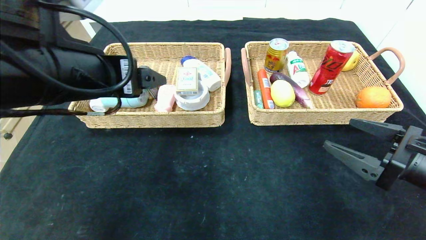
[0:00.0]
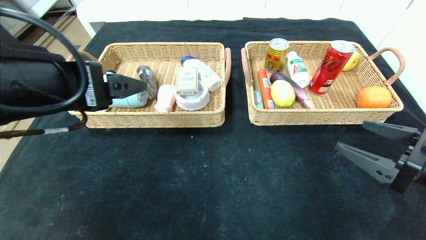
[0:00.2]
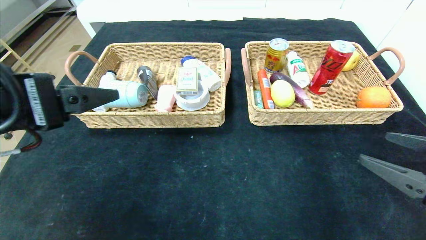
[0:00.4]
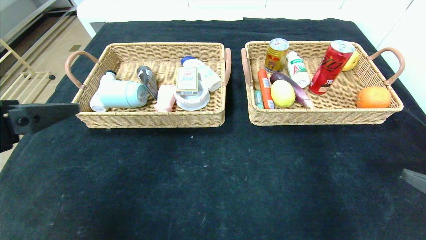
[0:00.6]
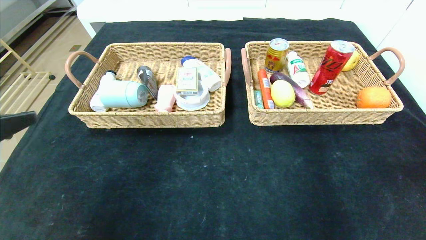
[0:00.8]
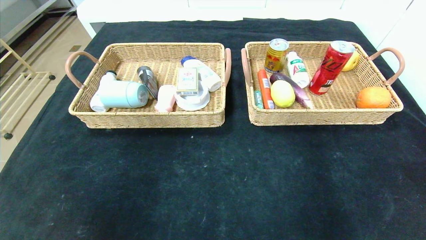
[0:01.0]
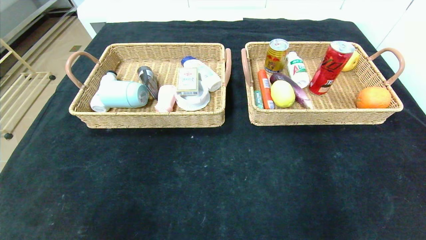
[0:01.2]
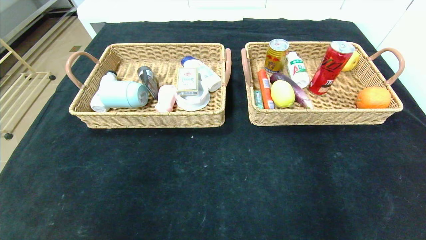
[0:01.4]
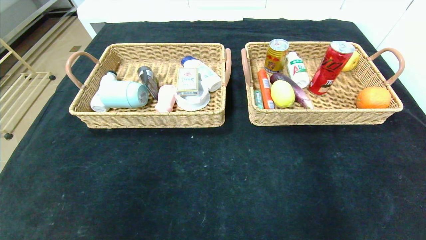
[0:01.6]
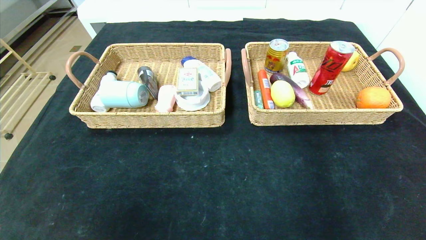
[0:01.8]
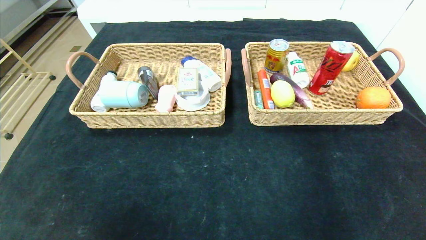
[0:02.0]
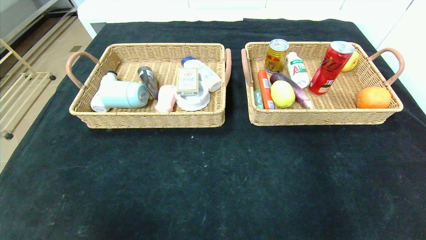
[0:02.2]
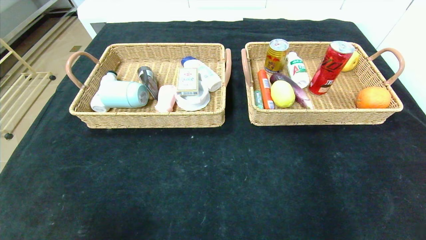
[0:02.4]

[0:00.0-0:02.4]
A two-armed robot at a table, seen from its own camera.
0.0 to 1.2 s: The left gripper travels backward and to the left by approximately 25 cm. Meanwhile the right gripper heads backward, covering approximately 25 cm.

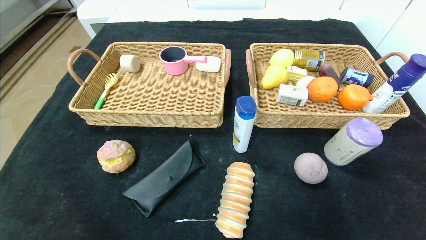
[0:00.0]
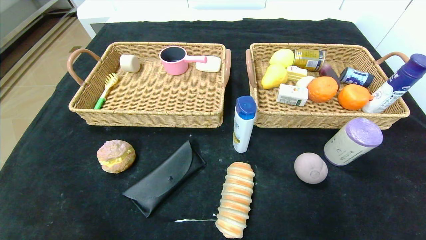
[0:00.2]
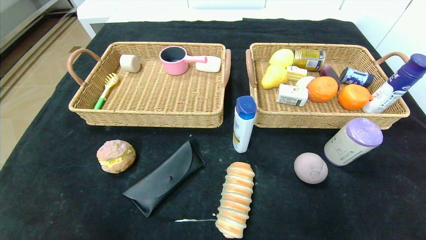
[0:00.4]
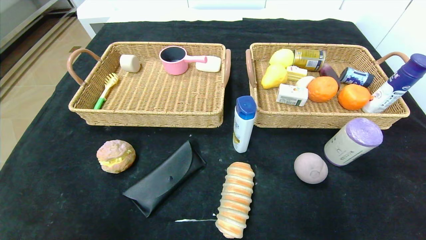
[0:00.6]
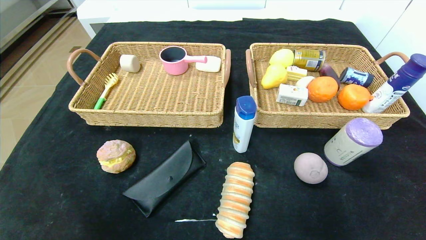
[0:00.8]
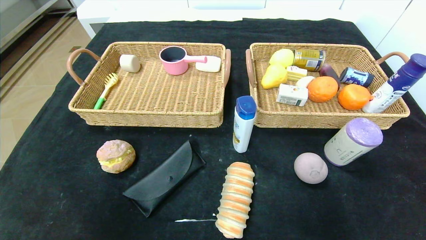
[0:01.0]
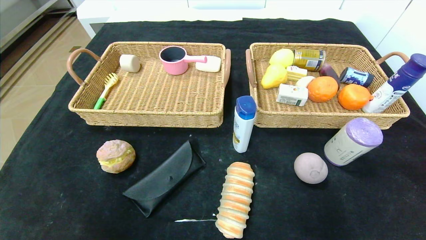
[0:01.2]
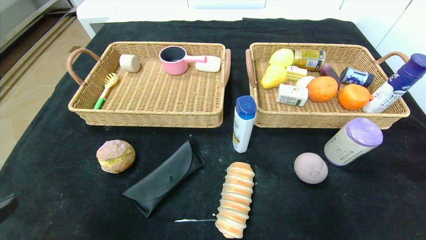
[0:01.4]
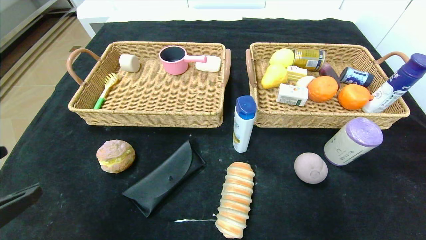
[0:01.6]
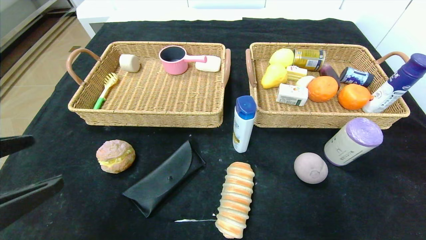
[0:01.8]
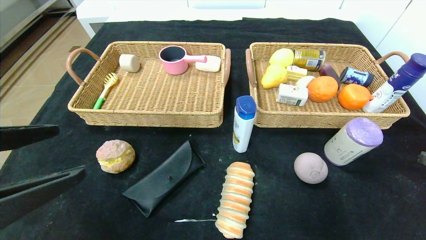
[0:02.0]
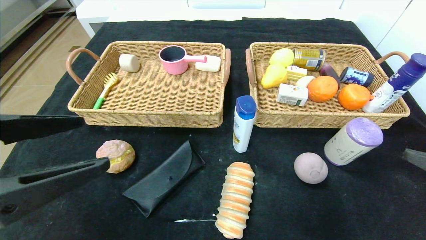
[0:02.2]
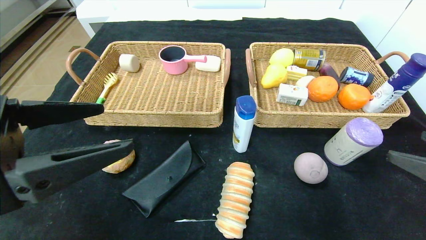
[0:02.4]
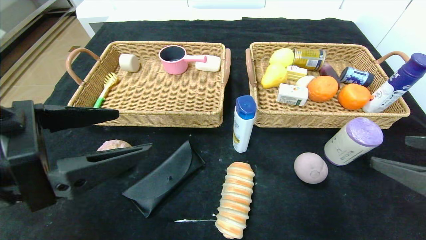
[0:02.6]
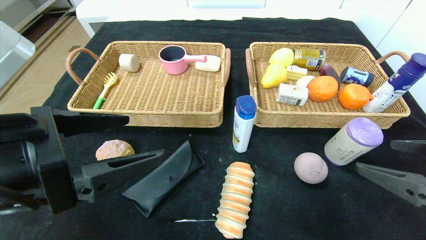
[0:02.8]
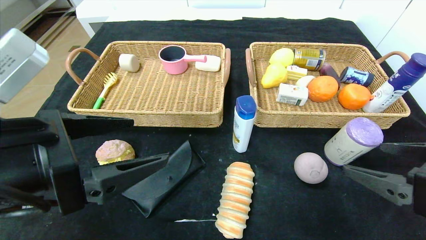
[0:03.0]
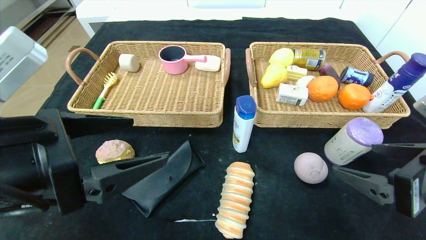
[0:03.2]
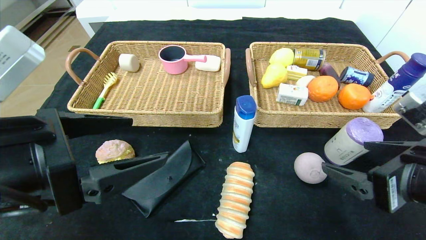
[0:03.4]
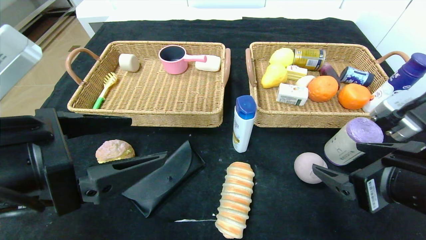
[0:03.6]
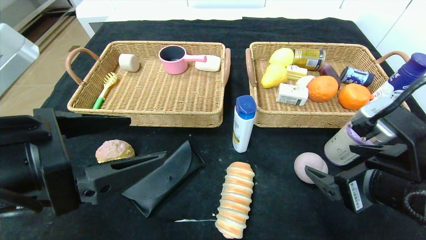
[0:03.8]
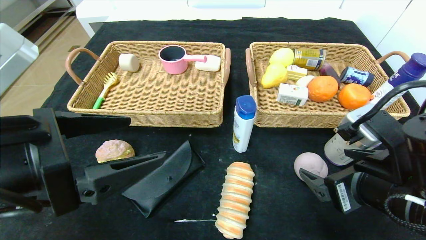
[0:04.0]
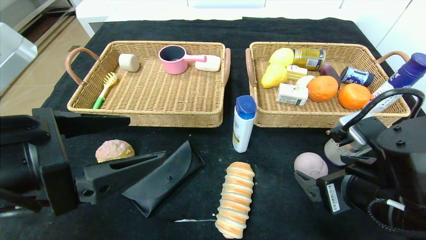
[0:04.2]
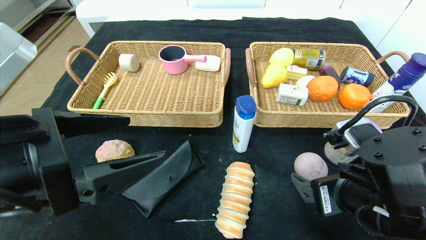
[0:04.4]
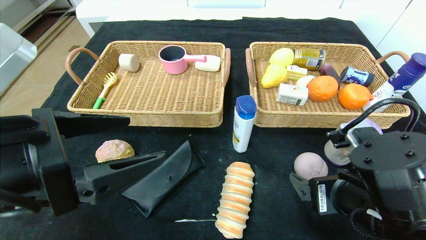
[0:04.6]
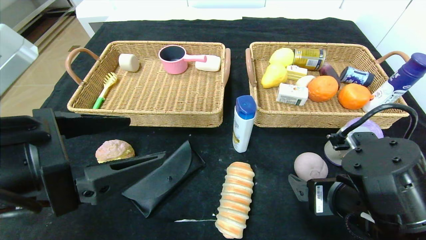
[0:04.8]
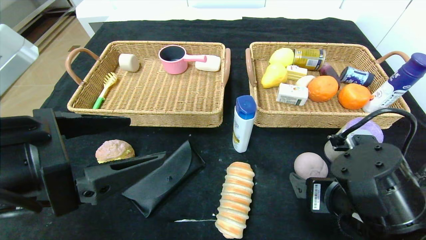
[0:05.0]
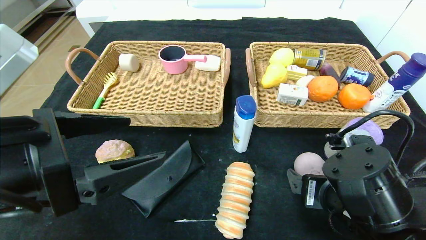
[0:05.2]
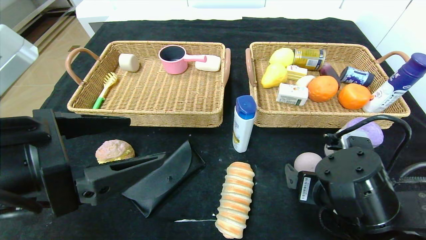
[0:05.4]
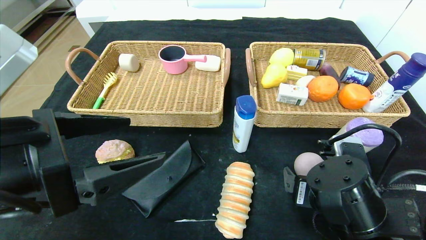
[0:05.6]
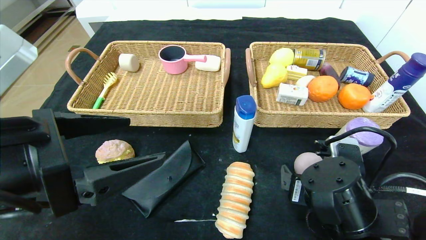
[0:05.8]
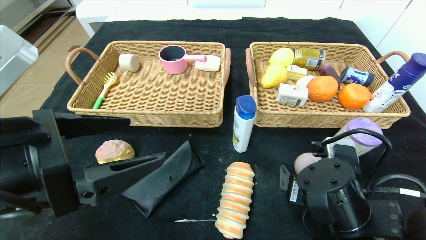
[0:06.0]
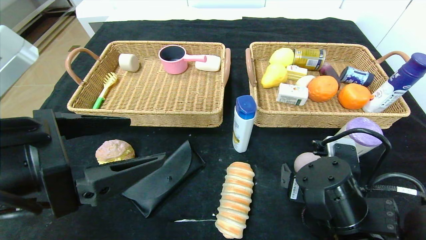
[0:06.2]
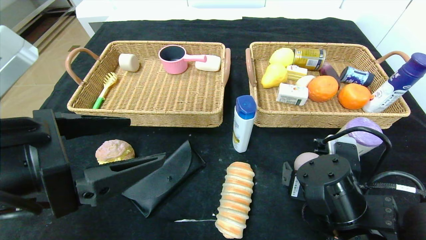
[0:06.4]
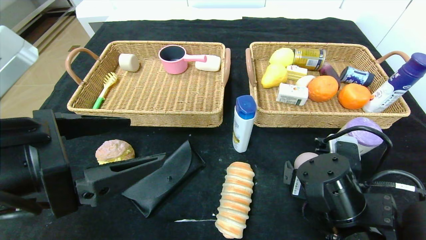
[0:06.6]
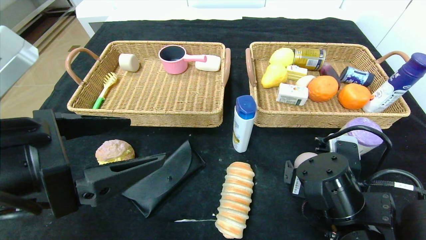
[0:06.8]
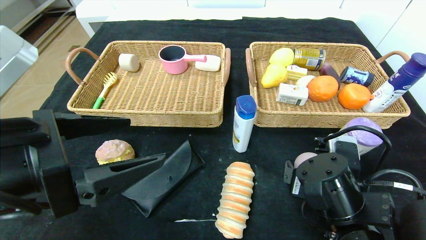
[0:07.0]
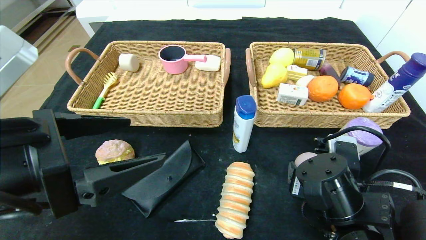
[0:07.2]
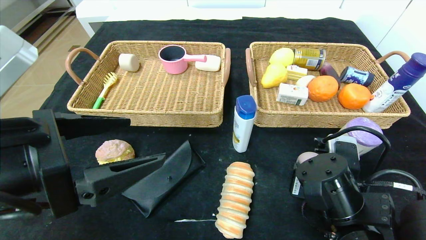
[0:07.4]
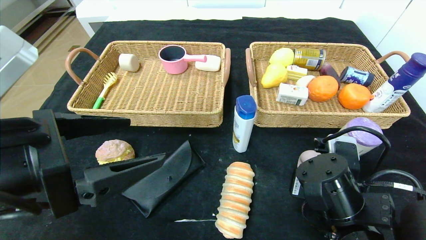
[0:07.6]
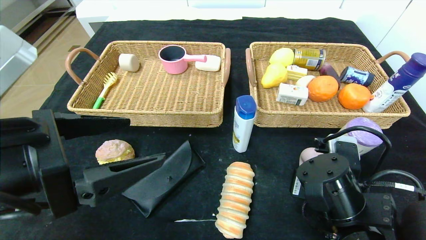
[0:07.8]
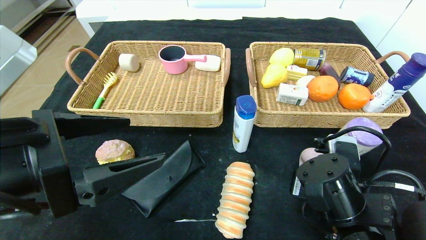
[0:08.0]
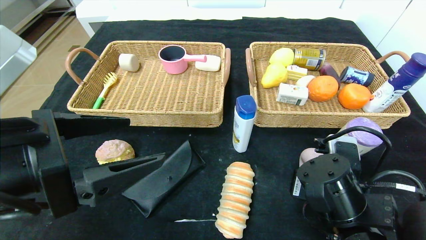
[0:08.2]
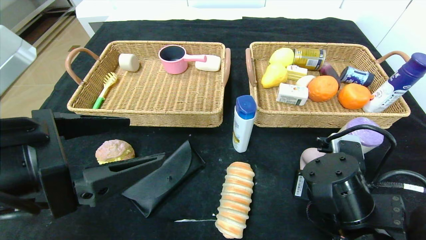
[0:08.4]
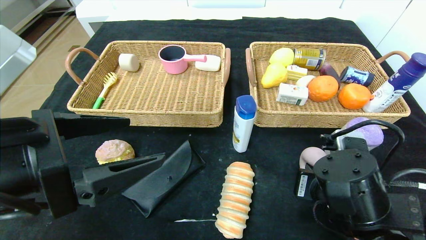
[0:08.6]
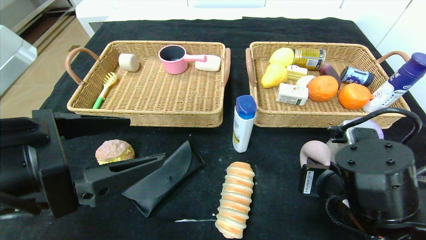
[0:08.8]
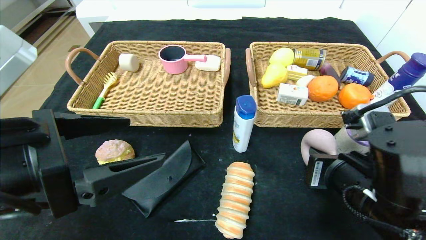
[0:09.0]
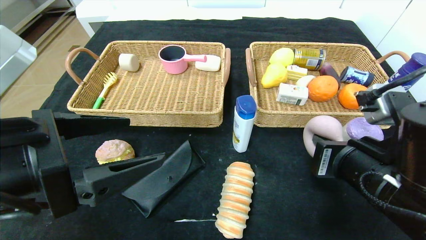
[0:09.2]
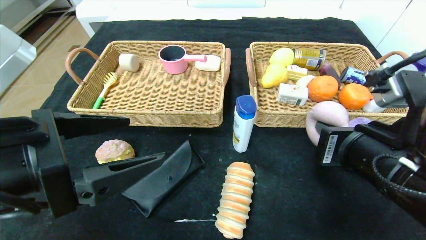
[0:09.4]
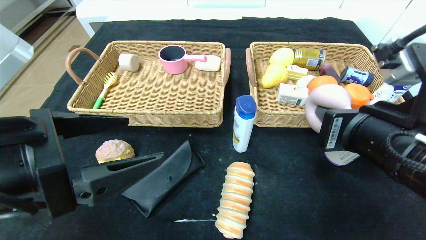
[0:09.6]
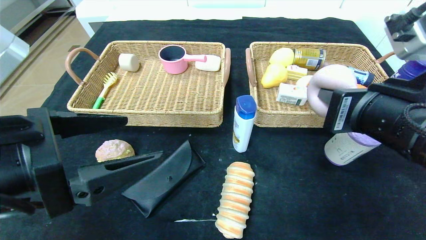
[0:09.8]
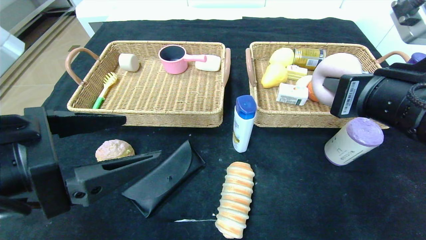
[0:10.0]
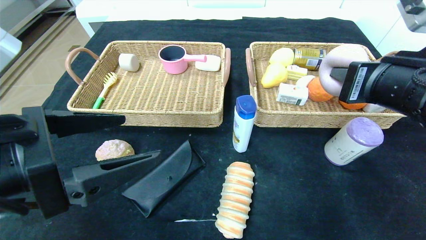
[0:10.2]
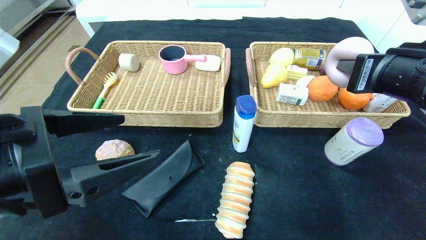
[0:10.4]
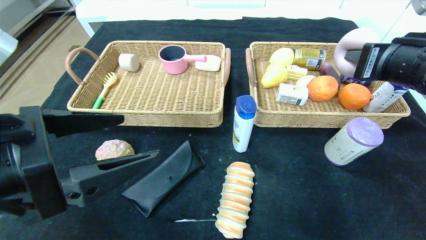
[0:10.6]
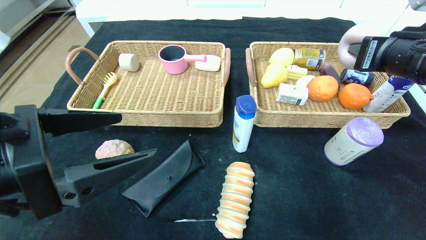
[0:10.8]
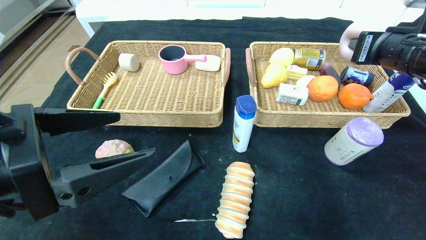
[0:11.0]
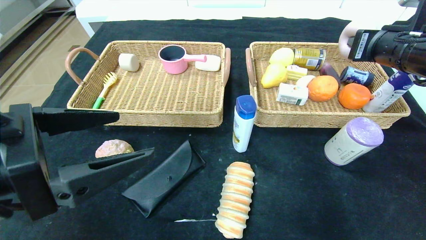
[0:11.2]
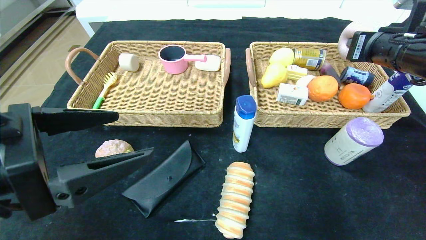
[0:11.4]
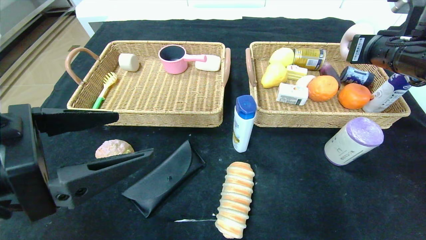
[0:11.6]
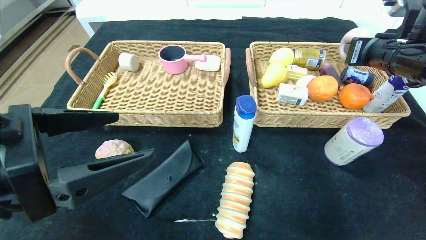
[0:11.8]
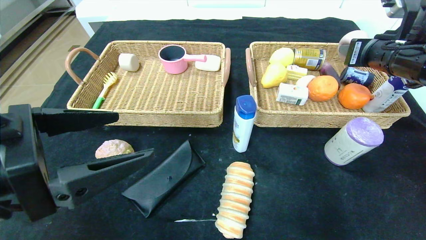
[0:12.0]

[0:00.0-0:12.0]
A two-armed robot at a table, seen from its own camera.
0.0 to 1.6 s: The left gripper moves upward, approximately 20 cm. Meanwhile the right gripper shifts roughly 20 cm upward and forward.
1.6 to 3.0 s: The right gripper heads to the left and forward, covering about 10 cm, while the left gripper shifts roughly 10 cm forward and to the right.
3.0 to 4.4 s: The right gripper moves to the left and downward, some 10 cm.
4.4 to 6.0 s: The right gripper goes some 5 cm downward.
6.0 to 7.6 s: The right gripper closes.
7.6 to 9.0 s: The right gripper goes about 5 cm upward.
9.0 to 10.4 s: The right gripper moves upward, to the right and forward, approximately 15 cm.
10.4 to 12.0 s: The right gripper goes about 10 cm forward and to the right, and opens up.

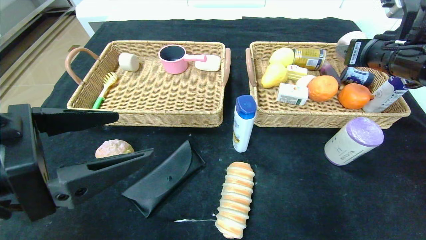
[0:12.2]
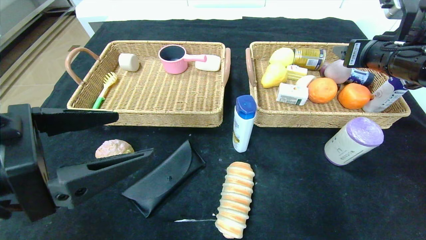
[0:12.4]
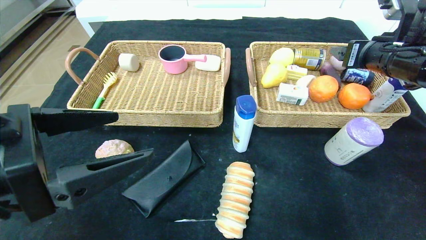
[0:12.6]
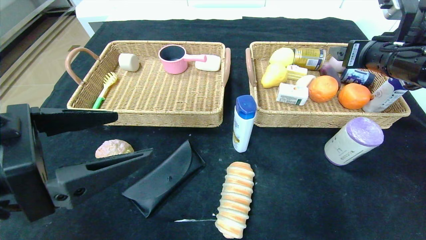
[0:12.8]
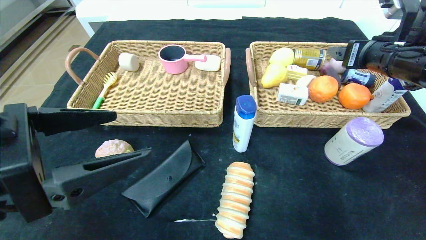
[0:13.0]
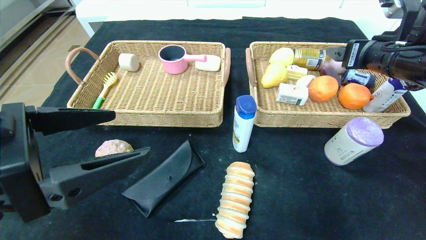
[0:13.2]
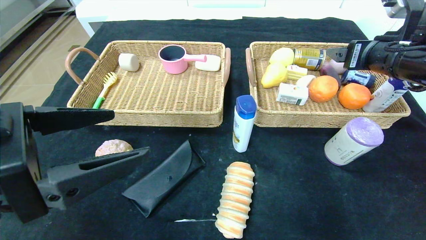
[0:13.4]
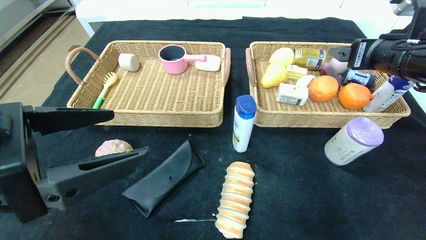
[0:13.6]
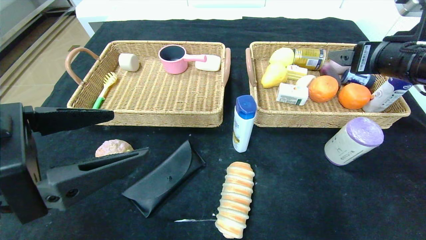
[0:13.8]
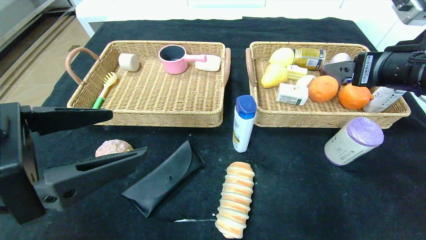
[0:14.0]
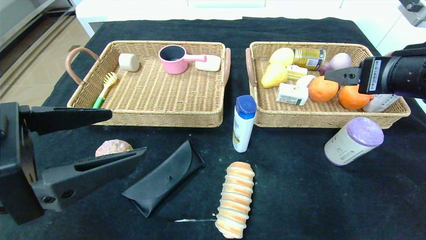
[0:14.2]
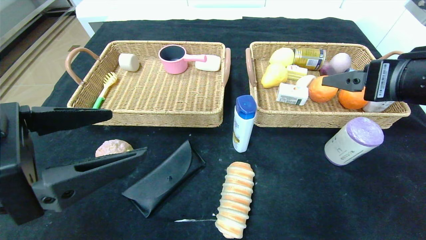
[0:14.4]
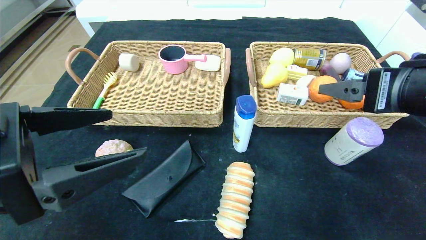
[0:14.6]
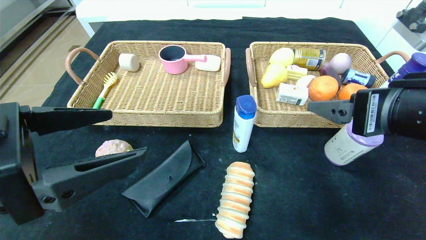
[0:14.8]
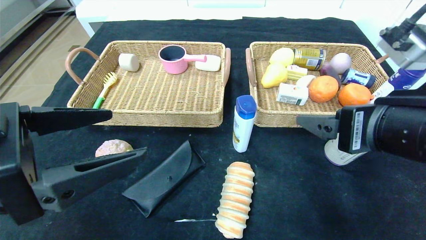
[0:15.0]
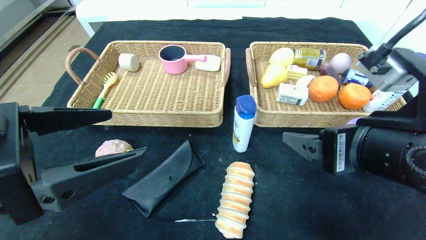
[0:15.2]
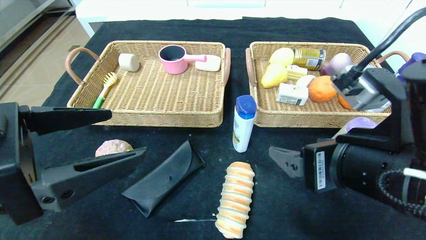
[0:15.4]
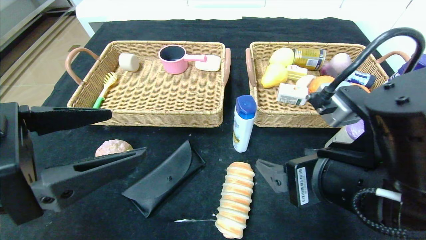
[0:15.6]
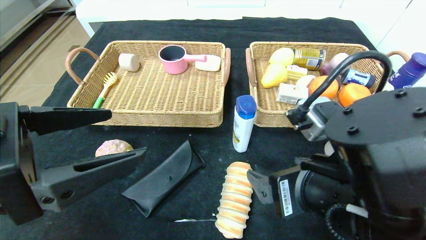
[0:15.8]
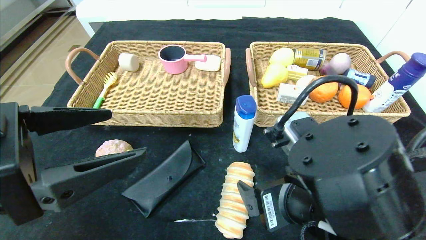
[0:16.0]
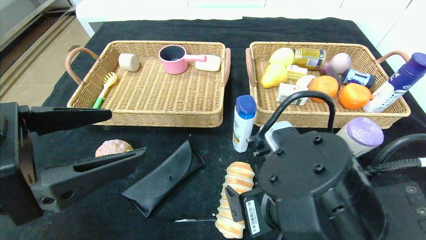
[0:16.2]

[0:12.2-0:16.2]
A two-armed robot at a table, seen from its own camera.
Step, 12.2 to 15.2 s: Pick up the peach and put it in the right basket.
12.2 to 13.6 s: The grippers stay close to where they were, moving slightly.
13.6 to 14.8 s: The right gripper travels backward and to the left by about 15 cm.
14.8 to 16.2 s: The right gripper moves to the left and downward, approximately 15 cm.
